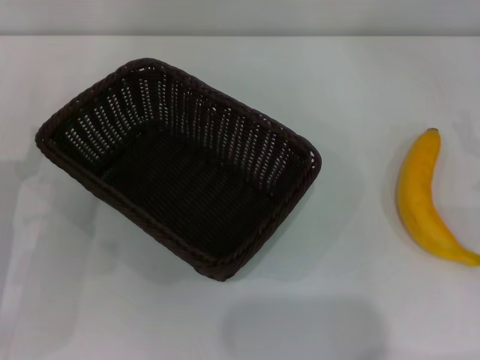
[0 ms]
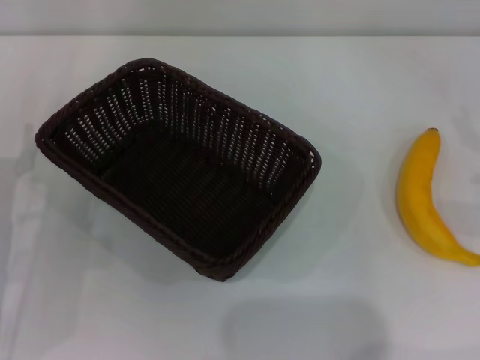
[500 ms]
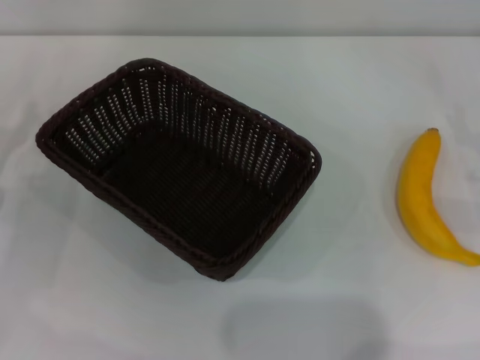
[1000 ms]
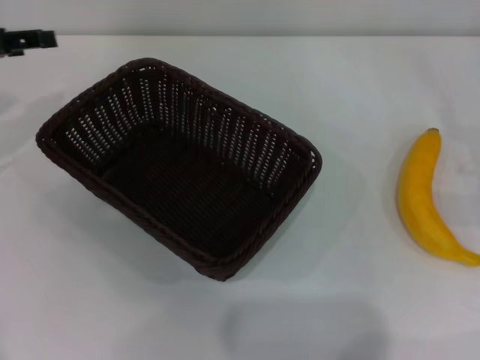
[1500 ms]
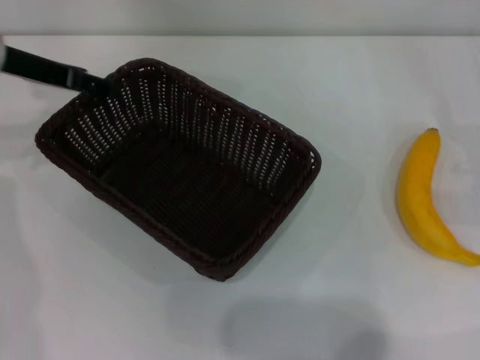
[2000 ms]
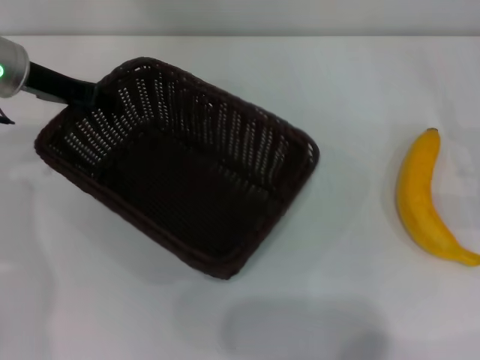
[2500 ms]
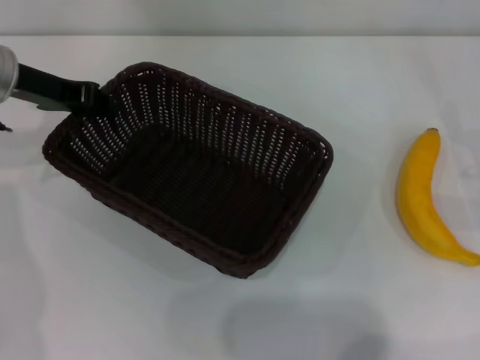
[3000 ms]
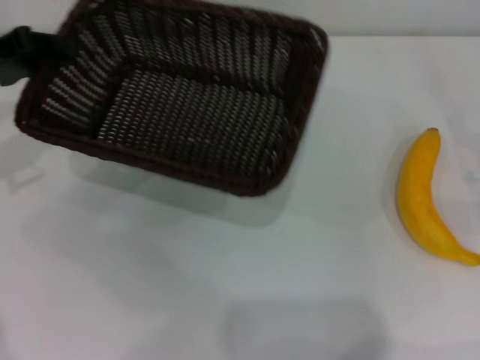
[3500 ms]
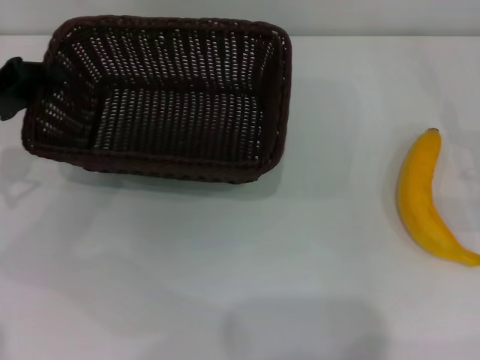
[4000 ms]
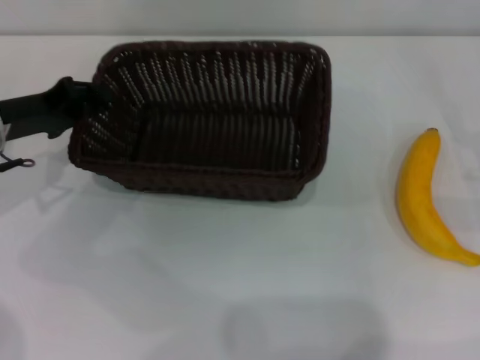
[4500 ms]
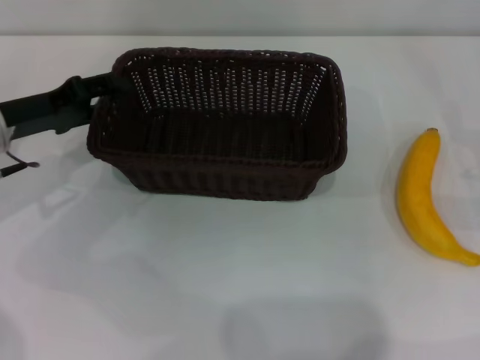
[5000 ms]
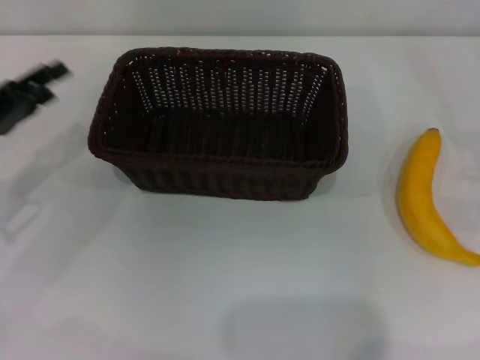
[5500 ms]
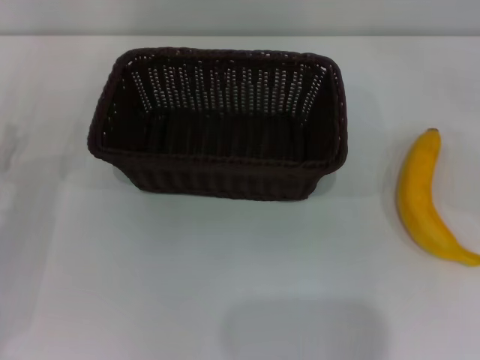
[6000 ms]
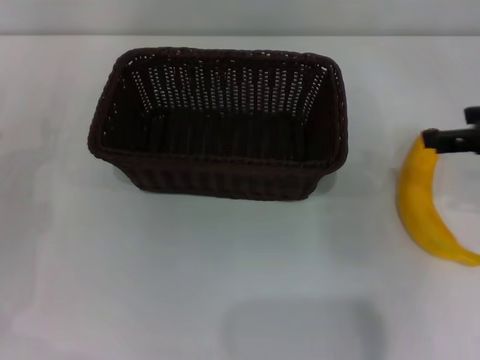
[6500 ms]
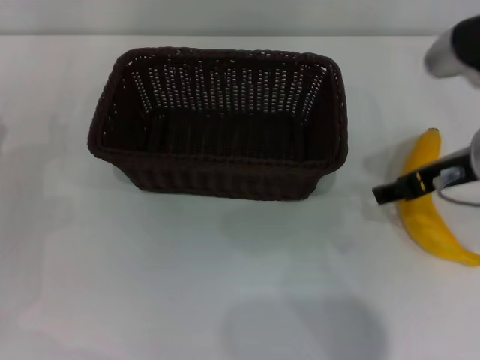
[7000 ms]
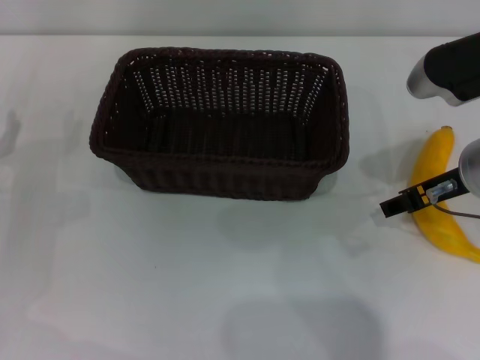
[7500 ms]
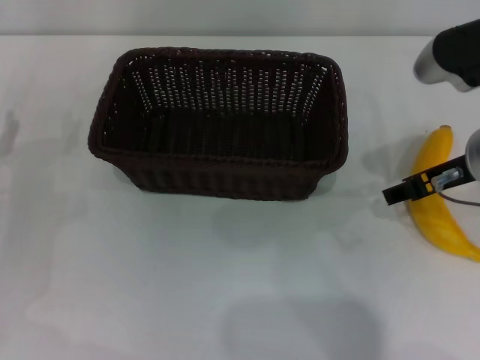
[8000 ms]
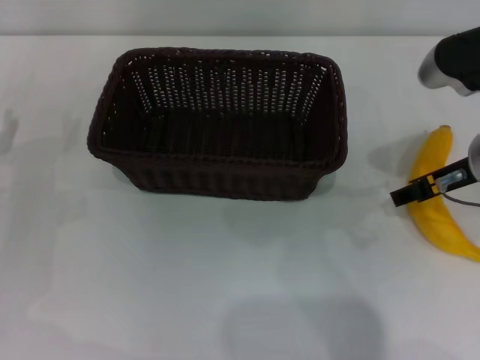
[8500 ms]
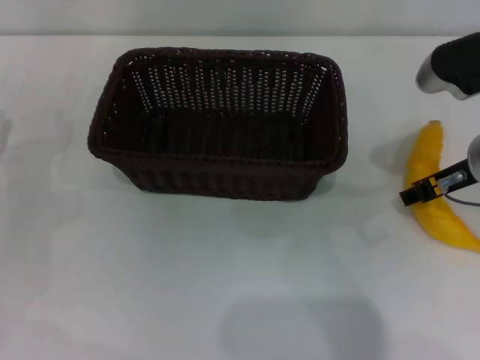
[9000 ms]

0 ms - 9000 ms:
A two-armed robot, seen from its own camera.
Step, 0 ms - 3000 ms: Pick up the dark basket with the left gripper.
Step, 3500 ms - 5000 ms: Place the dark basket in the center of view with the left gripper.
0 ms - 2000 ms: The left gripper heads forward and upward, covering about 20 cm.
2000 ms - 4500 ms: The left gripper travels downward and backward by roughly 10 cm, travels to the left and back again, approximately 5 cm each way, and closes.
4500 ms - 7000 ms: The right gripper shifts approximately 20 cm to the left and upward. Meanwhile the left gripper heads backward, to the left and downward, covering roughly 10 cm, and opens its fingers.
7000 ms - 9000 ms: The right gripper closes its fingers.

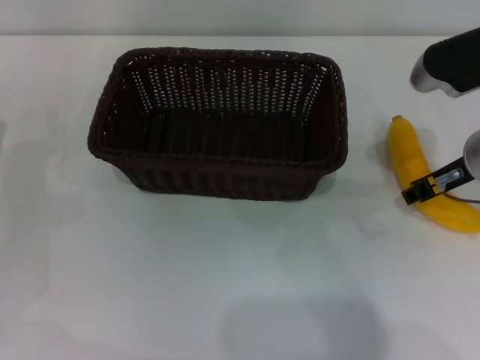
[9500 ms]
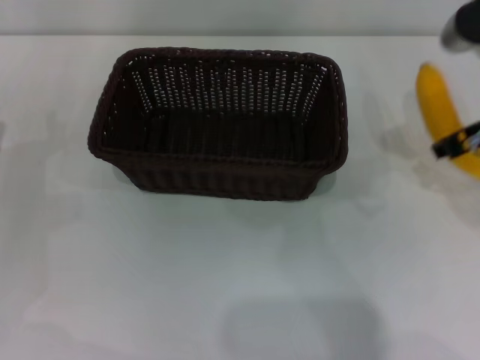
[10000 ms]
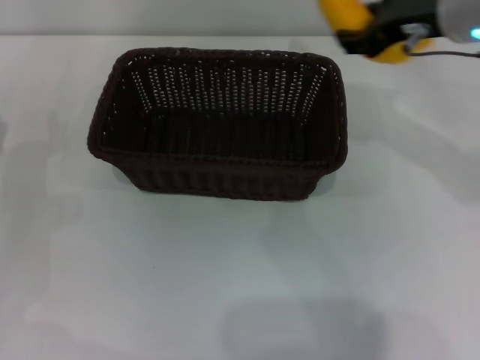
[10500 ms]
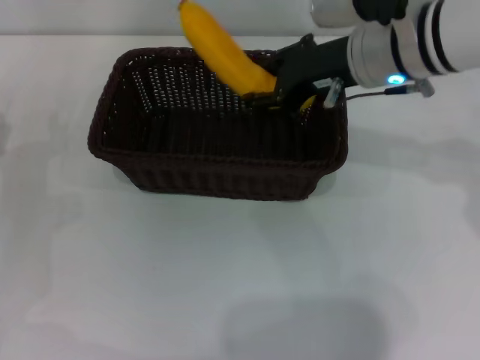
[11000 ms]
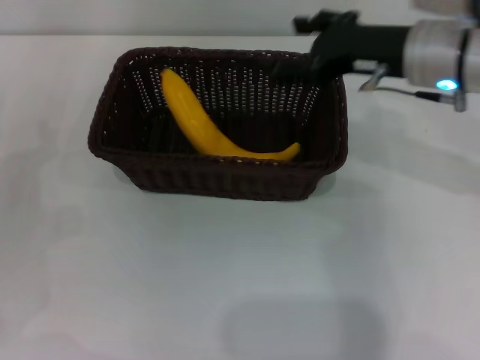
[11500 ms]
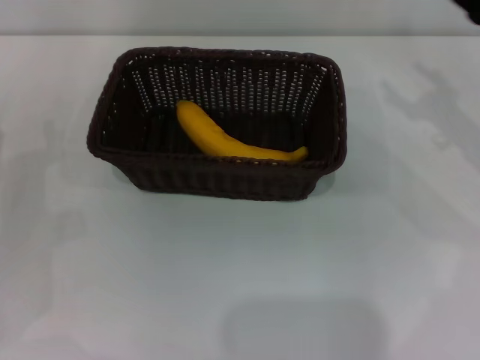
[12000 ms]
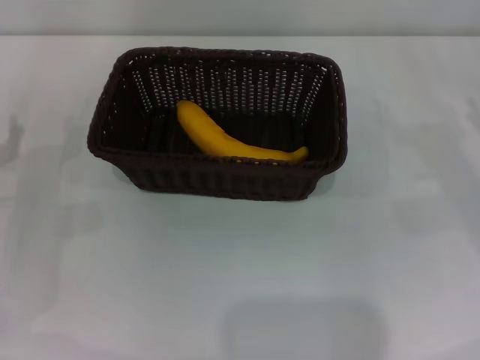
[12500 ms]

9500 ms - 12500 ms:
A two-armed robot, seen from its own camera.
Step, 10000 ms - 11000 ms: Place the banana into the dark basket with the right gripper.
9500 ms - 11000 ms: The right gripper goes approximately 10 cm to the left and forward.
11000 ms - 12500 ms: The right gripper is displaced to the right and downward by some 25 cm, and opens.

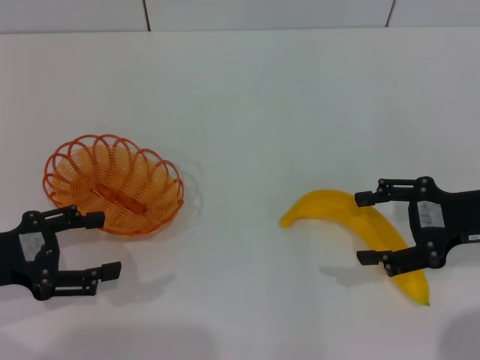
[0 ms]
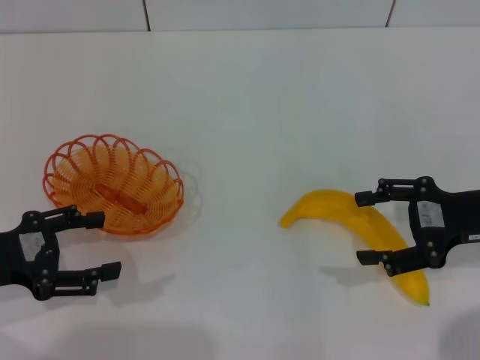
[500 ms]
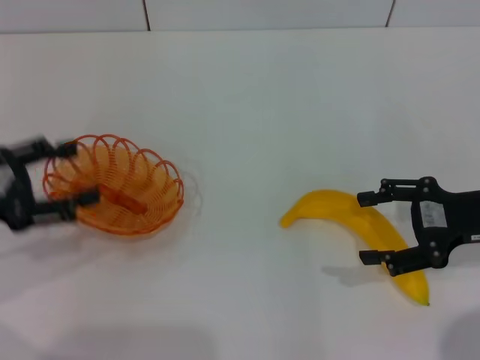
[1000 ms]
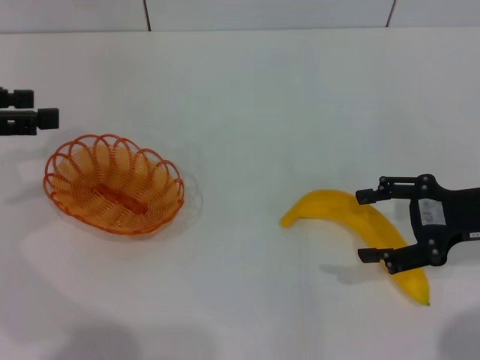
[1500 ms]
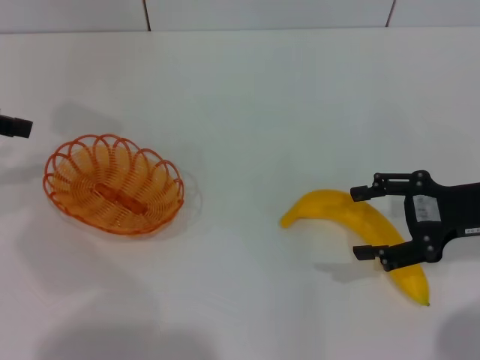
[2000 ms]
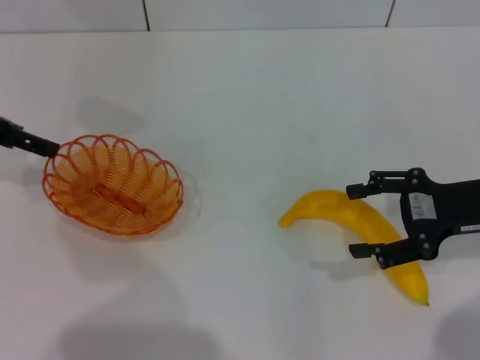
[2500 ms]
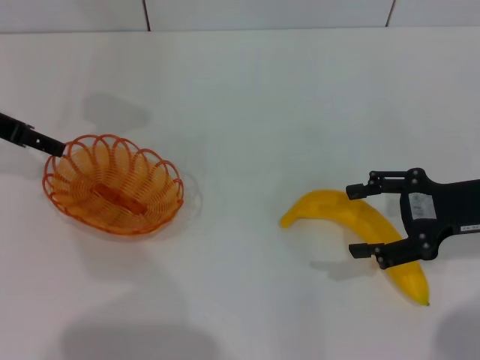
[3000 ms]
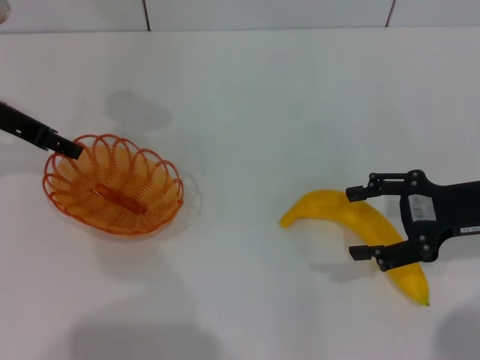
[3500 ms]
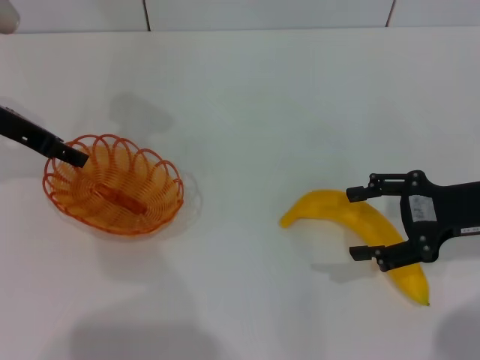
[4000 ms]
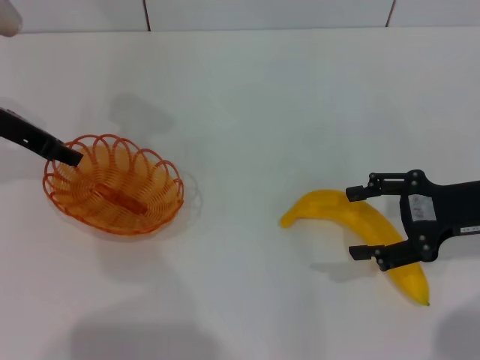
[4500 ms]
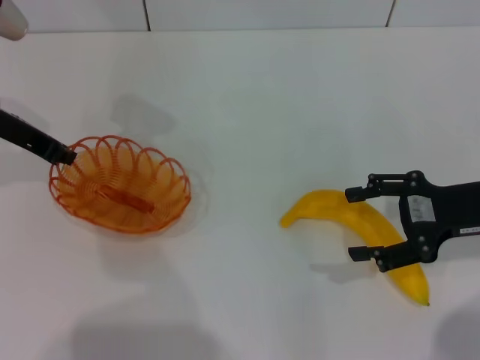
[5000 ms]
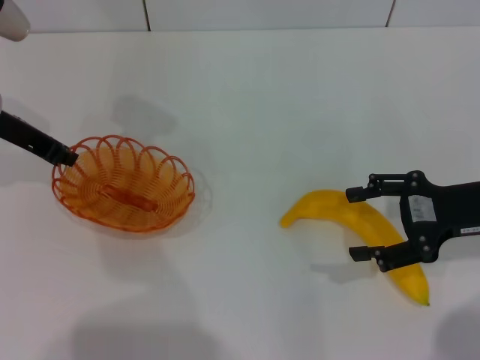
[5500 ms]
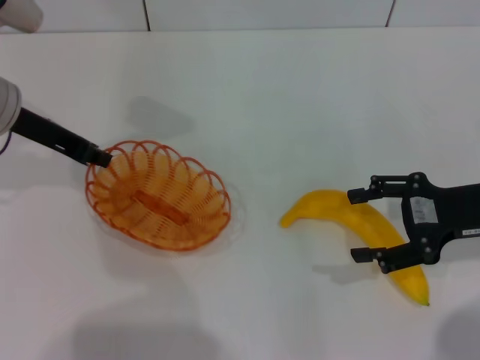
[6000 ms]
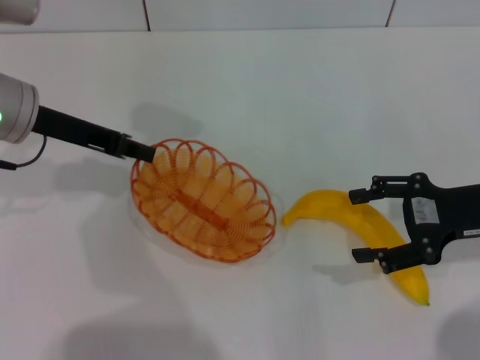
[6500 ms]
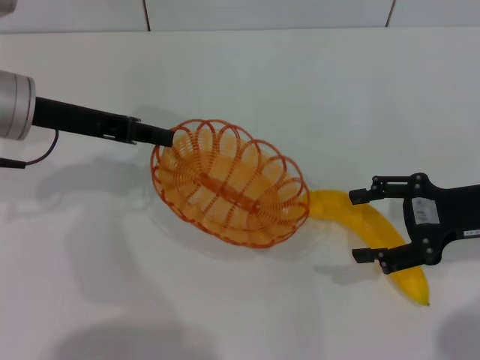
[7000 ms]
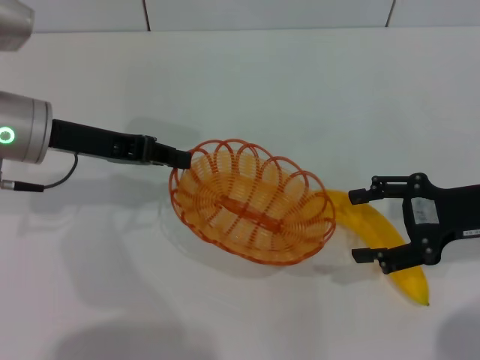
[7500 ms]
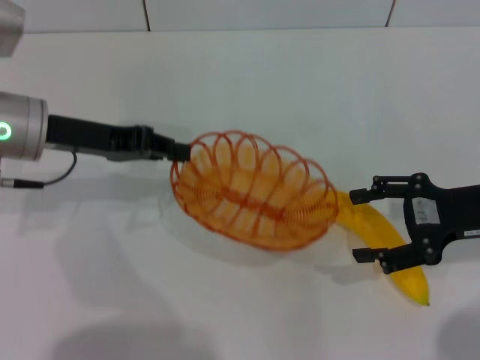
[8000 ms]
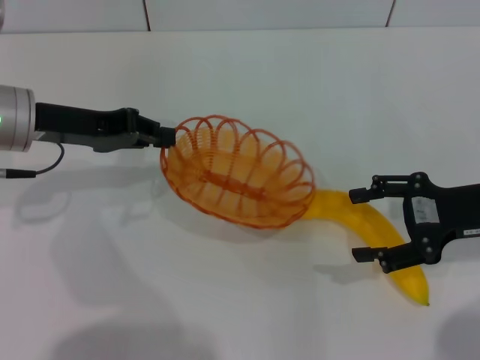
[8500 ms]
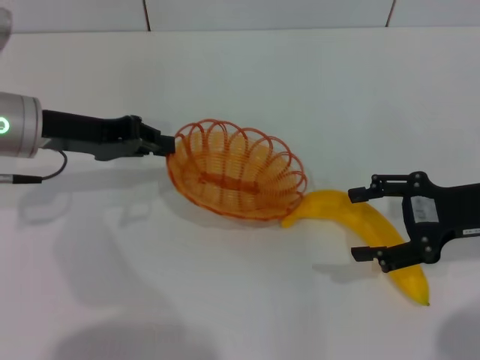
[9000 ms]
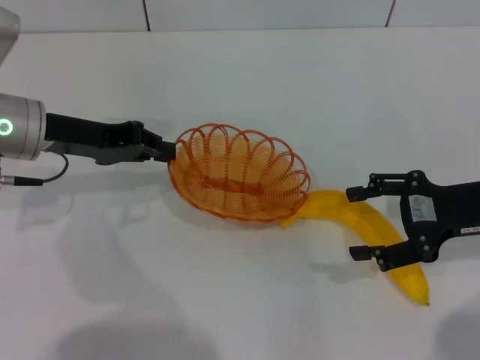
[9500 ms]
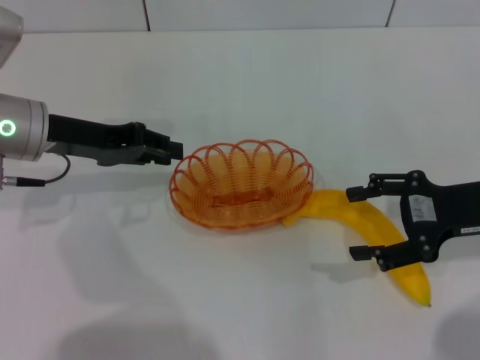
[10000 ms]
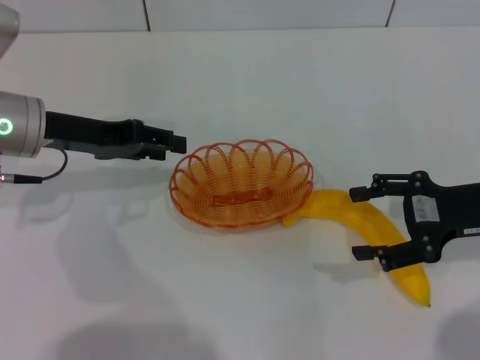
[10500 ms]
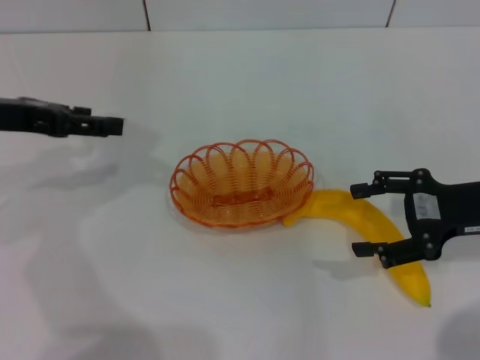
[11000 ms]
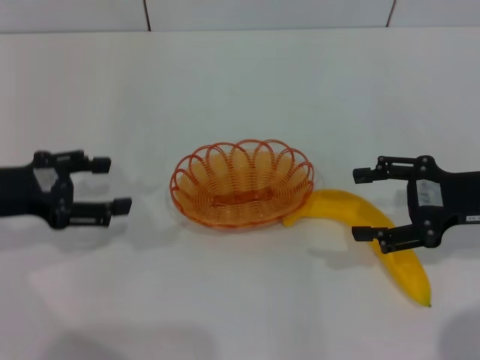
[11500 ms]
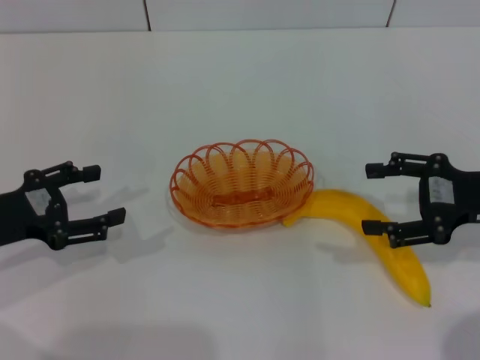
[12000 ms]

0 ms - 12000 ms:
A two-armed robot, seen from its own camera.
Step, 0 ms - 6000 ms: Pick up the basket with the left gripper.
Step, 6500 ms - 9500 ms: Place the basket in the center of view with the left gripper.
0 ms - 2000 ms: The left gripper shifts approximately 15 cm upward and forward.
2000 ms - 4000 ms: The left gripper heads to the right, covering some 10 cm.
4000 ms - 6000 ms: The left gripper closes up.
8000 ms - 10000 ms: The grippers make only small movements.
10000 ms - 12000 ms: The left gripper shifts approximately 15 cm backward, to the left and downward, and opens.

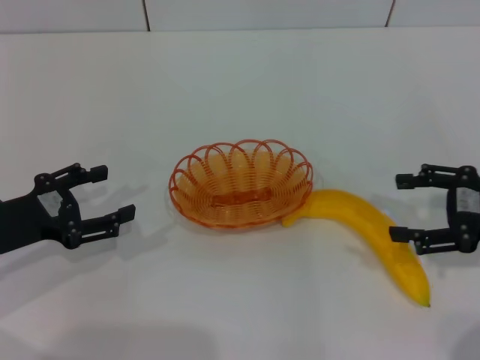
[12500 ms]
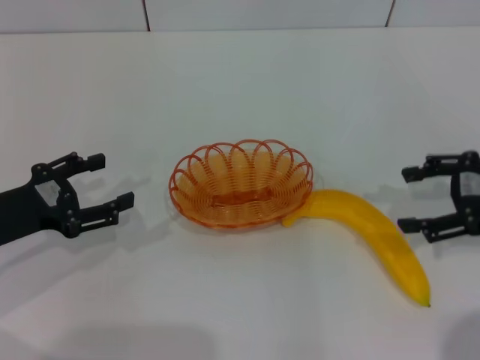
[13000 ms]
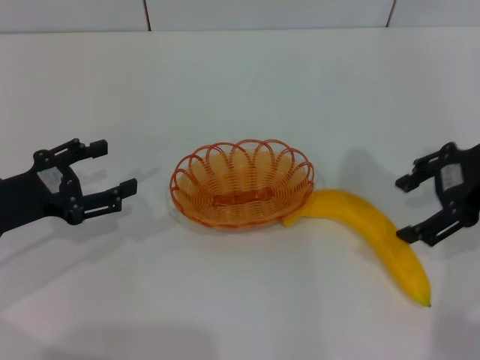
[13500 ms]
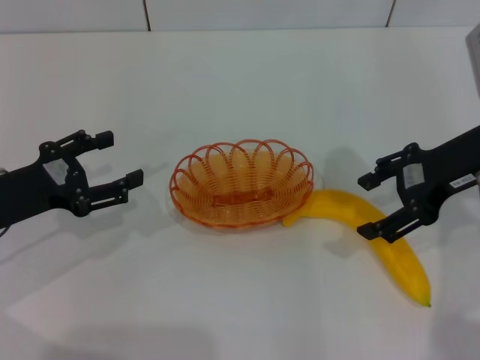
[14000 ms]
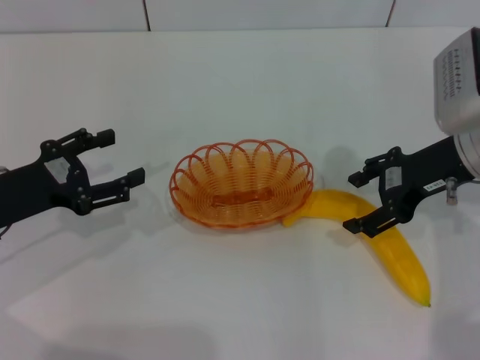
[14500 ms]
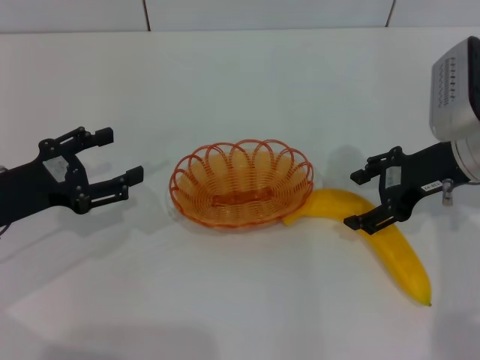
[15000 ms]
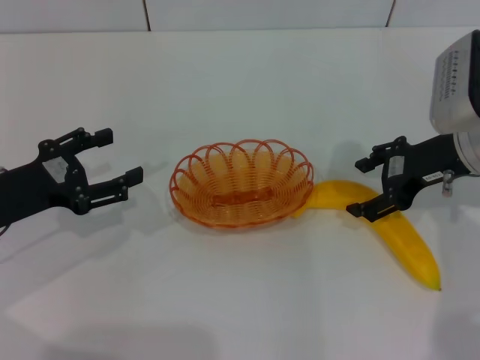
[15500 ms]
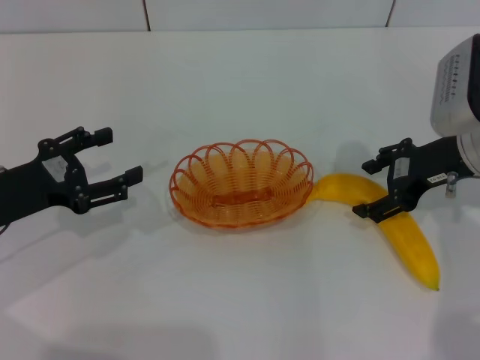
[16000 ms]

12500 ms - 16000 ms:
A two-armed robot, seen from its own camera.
12500 ms - 14500 ms: The right gripper travels to the left and forward by about 10 cm.
14500 ms - 16000 ms: The grippers move only a little.
